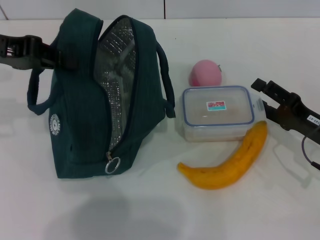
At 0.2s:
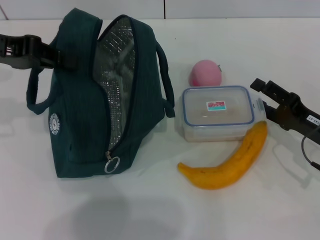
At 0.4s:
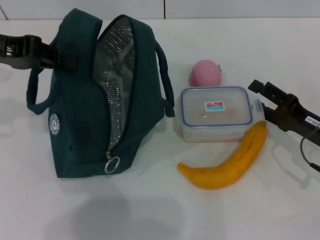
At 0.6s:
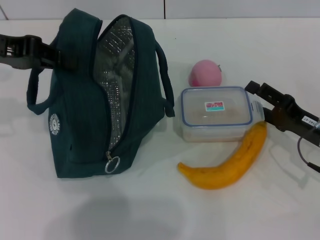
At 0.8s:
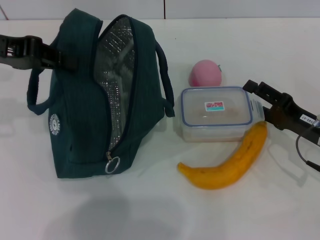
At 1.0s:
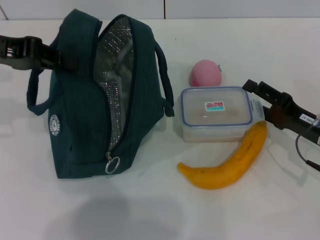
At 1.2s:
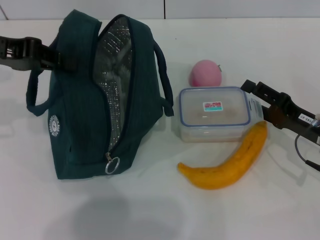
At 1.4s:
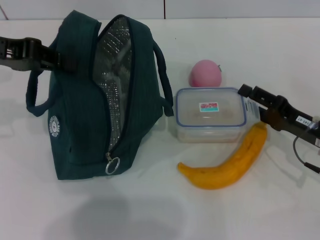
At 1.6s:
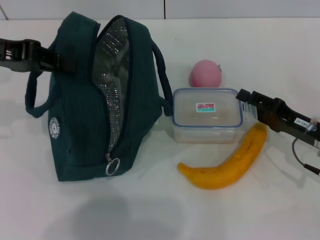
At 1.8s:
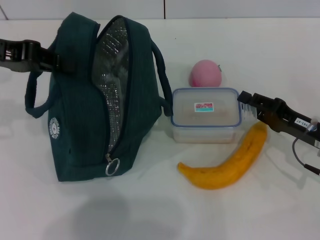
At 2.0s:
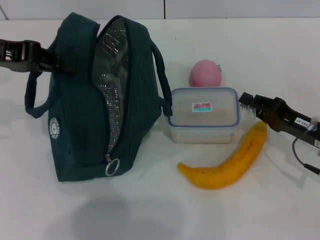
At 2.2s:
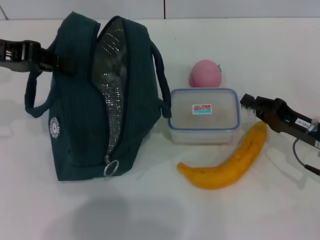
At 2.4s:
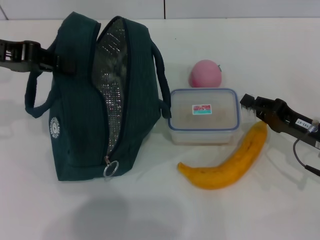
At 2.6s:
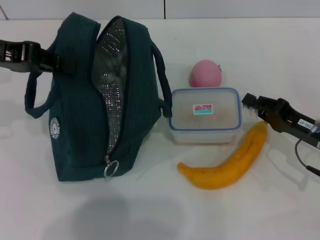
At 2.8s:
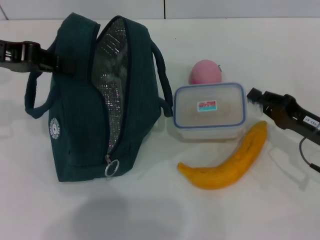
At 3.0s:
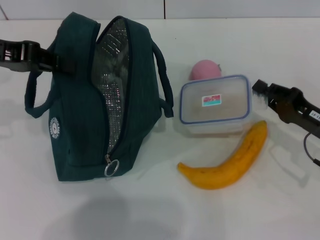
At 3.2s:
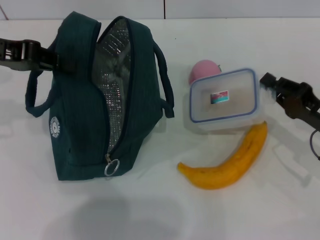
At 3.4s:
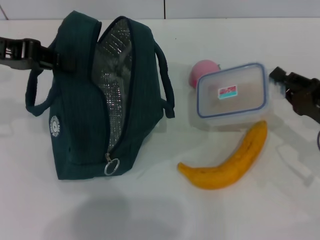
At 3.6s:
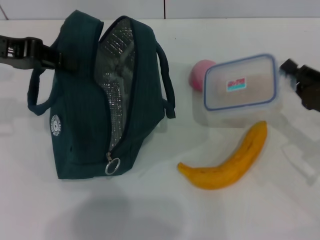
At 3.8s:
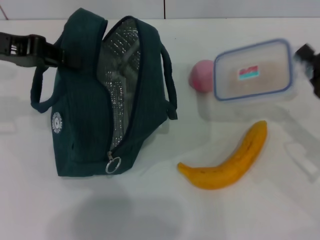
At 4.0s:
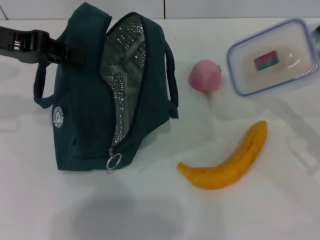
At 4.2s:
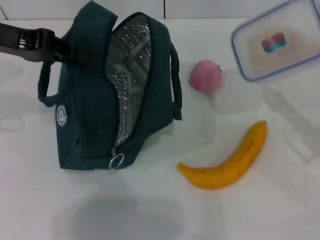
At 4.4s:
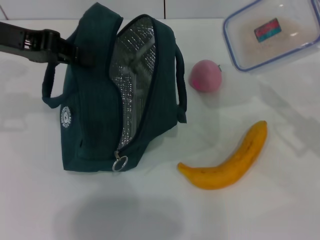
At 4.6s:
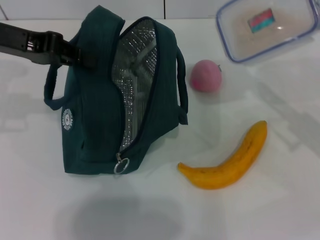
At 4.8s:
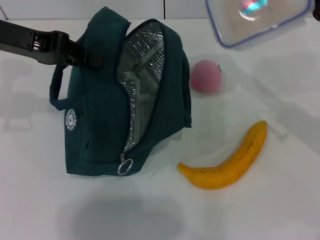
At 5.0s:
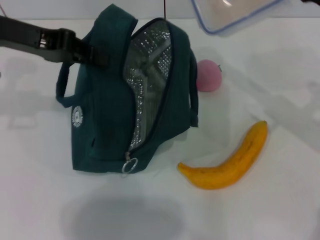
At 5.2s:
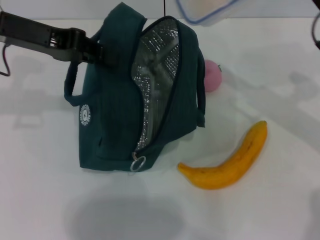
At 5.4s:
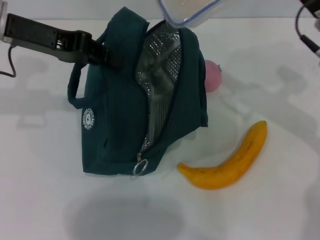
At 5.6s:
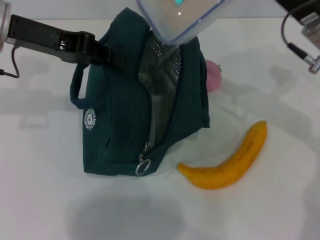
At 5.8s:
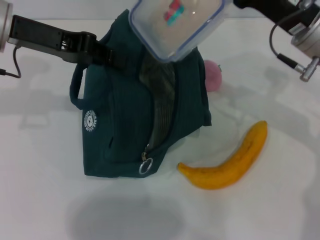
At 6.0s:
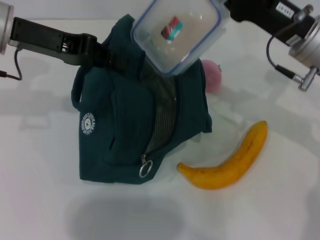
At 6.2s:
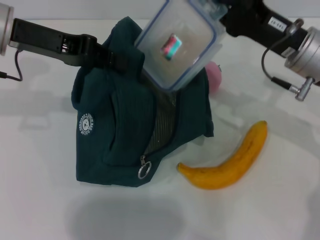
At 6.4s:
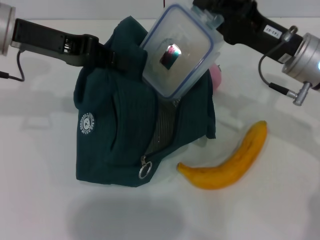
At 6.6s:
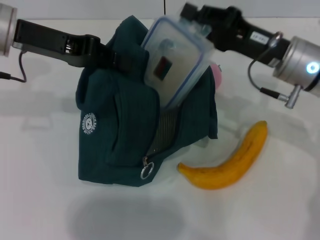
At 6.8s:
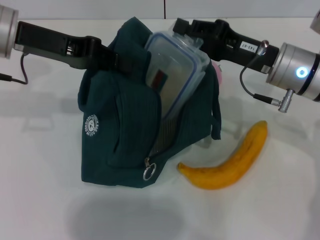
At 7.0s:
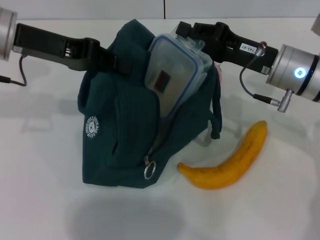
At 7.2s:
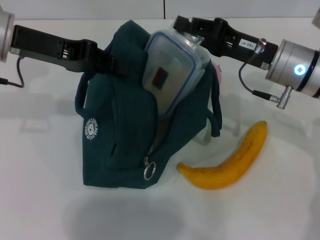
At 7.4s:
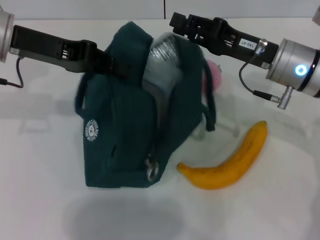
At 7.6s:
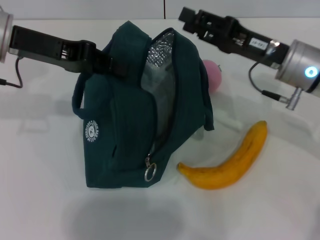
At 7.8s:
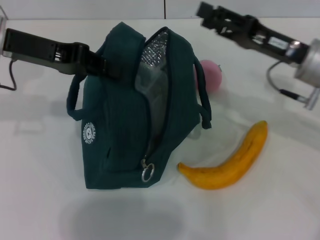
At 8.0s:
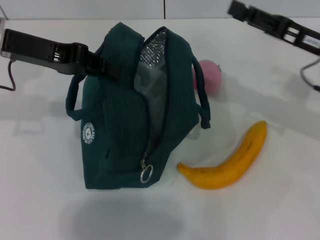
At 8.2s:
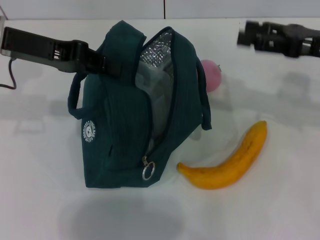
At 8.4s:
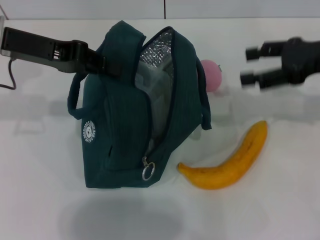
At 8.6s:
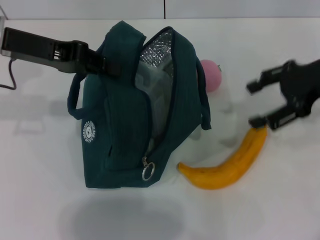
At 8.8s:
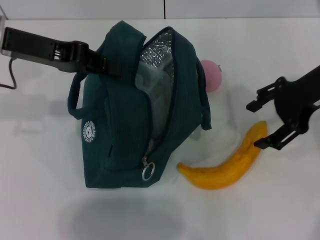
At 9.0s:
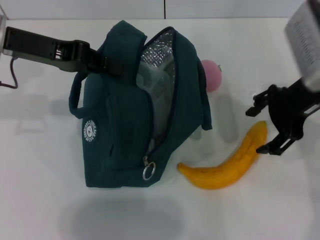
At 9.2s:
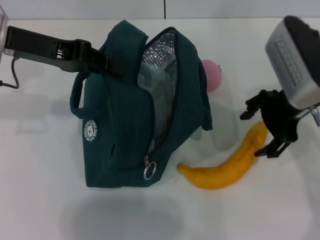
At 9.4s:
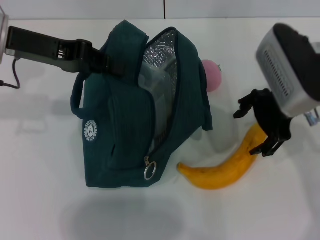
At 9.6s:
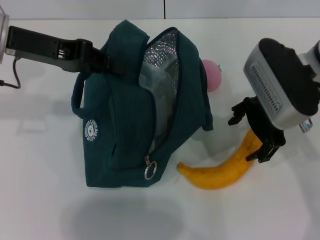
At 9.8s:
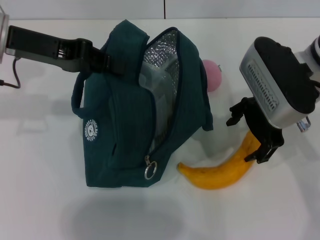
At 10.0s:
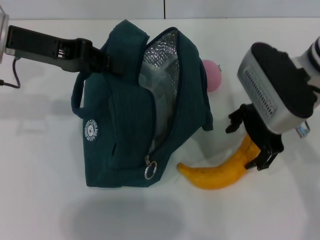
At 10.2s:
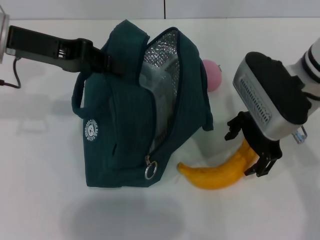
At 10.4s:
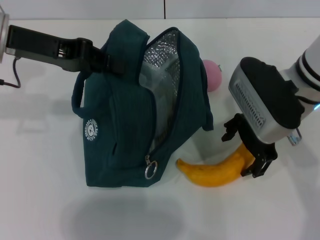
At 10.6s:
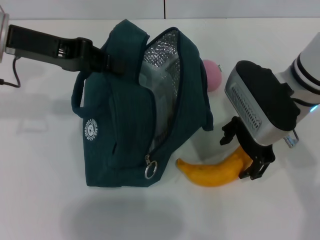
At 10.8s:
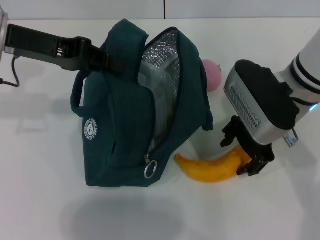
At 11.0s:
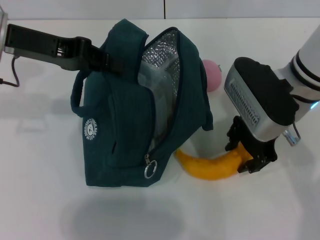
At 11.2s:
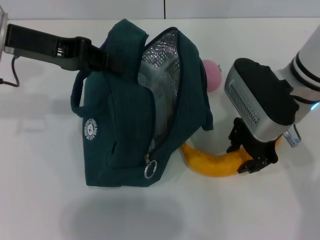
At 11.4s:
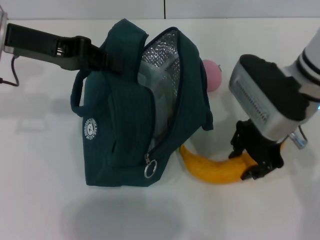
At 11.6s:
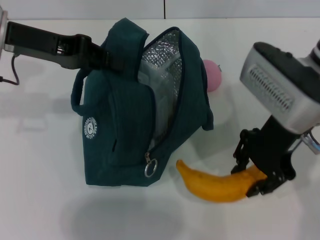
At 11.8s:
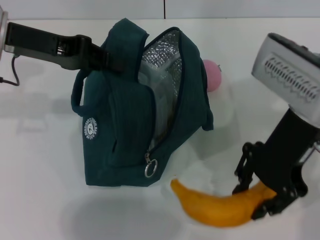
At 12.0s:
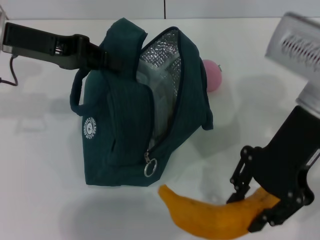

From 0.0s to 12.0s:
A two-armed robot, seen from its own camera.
Step, from 0.0s to 2.4s: Pick up the lunch box with your right hand.
Step, from 2.6s to 7.2s: Place the lunch box into the lunch bag with your right hand.
Step, from 7.6s to 11.2s: Take the banana with your right hand.
From 0.0s to 1.6s: The grippers stay close to where they were, moving slightly.
From 1.6s to 3.0s: The right gripper closes up.
From 3.0s to 4.4s: The right gripper moves upward, some 5 cm.
From 4.4s to 6.0s: The right gripper heads to the left and forward, covering some 10 cm.
From 7.6s to 9.0s: The right gripper is displaced upward by roughly 5 cm, goes to the right and returns, approximately 10 cm each way, and opens up.
From 9.0s to 10.4s: The right gripper moves to the left, roughly 5 cm.
From 10.4s to 12.0s: The right gripper shifts approximately 5 cm upward, and closes.

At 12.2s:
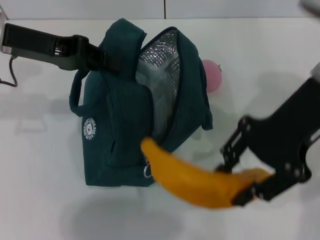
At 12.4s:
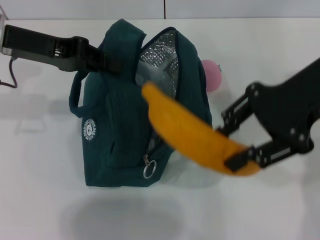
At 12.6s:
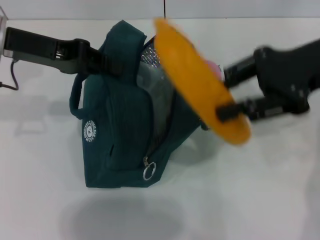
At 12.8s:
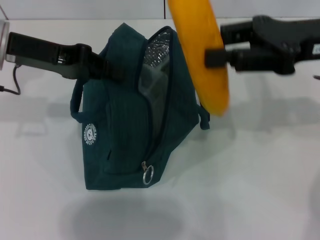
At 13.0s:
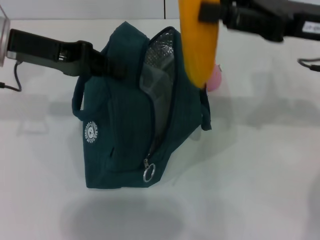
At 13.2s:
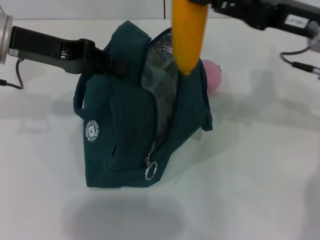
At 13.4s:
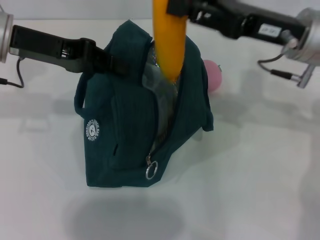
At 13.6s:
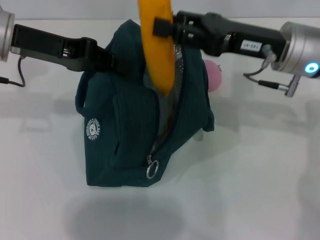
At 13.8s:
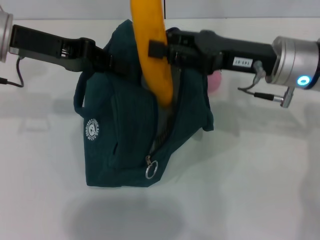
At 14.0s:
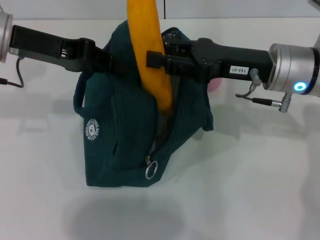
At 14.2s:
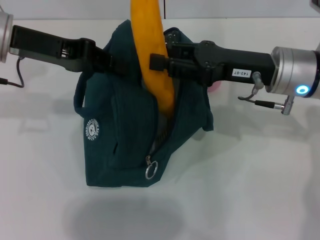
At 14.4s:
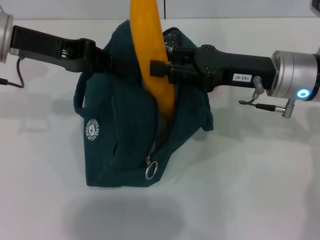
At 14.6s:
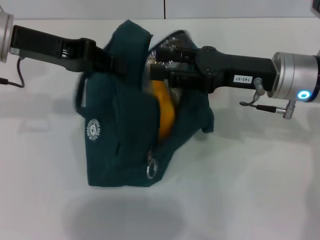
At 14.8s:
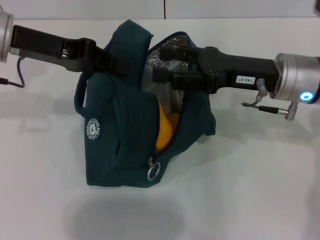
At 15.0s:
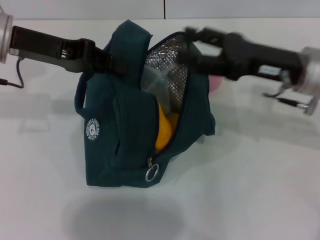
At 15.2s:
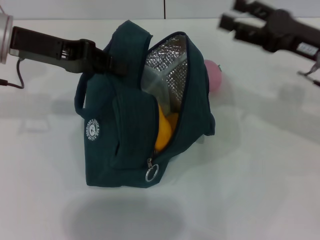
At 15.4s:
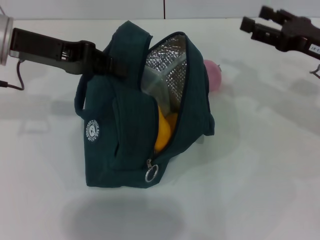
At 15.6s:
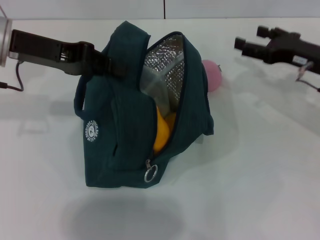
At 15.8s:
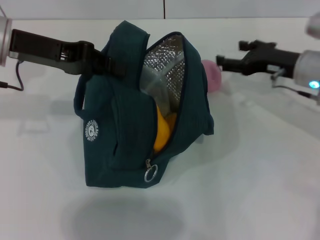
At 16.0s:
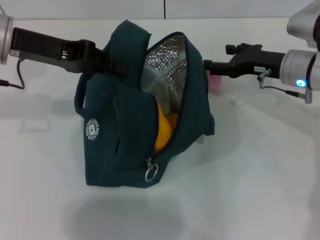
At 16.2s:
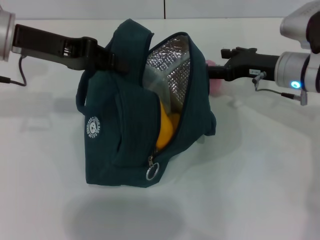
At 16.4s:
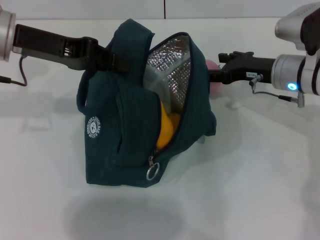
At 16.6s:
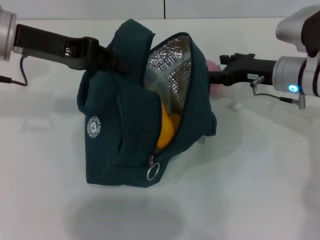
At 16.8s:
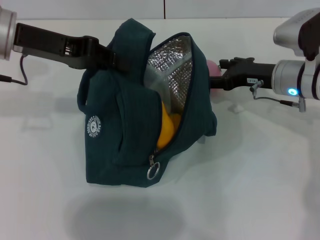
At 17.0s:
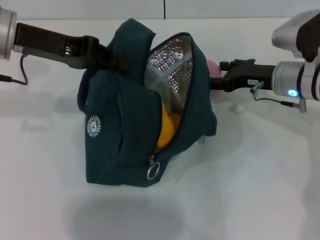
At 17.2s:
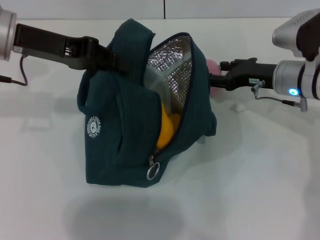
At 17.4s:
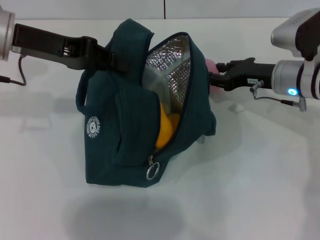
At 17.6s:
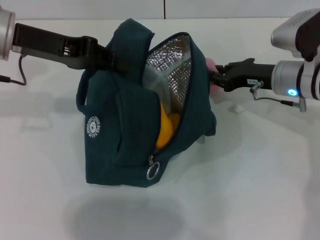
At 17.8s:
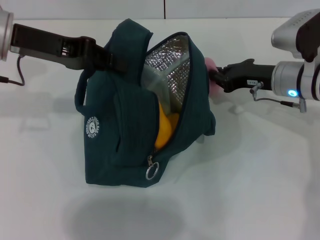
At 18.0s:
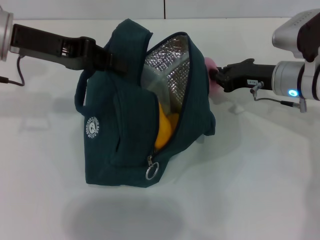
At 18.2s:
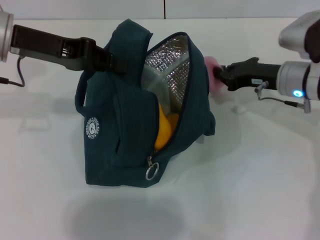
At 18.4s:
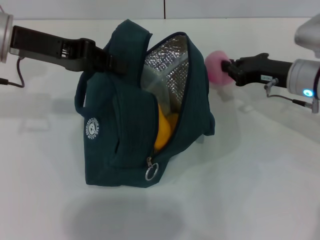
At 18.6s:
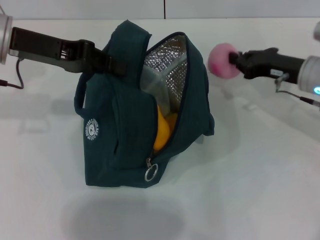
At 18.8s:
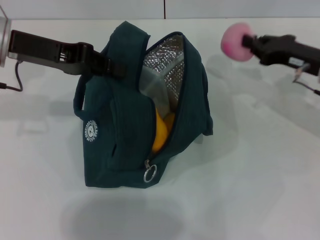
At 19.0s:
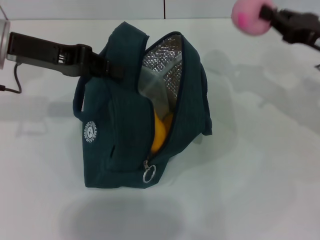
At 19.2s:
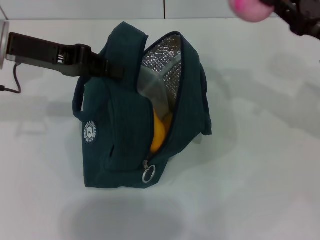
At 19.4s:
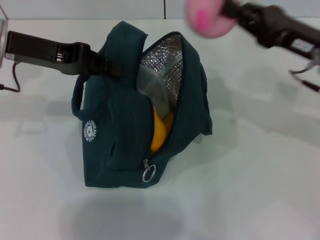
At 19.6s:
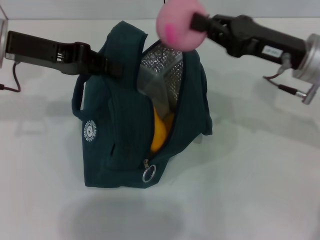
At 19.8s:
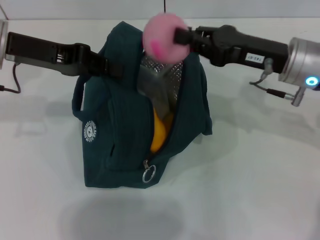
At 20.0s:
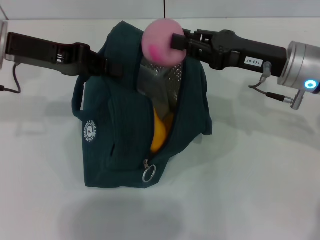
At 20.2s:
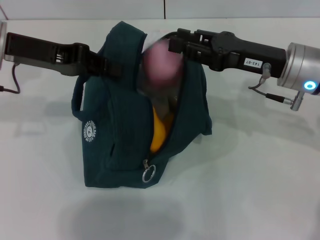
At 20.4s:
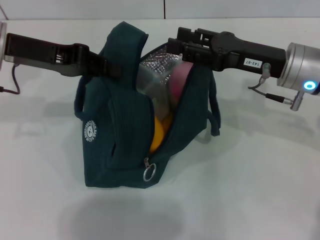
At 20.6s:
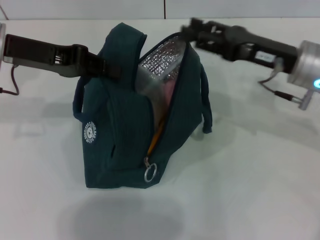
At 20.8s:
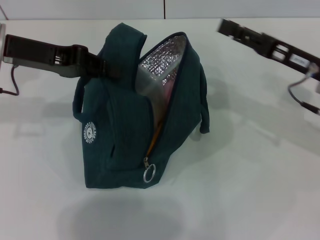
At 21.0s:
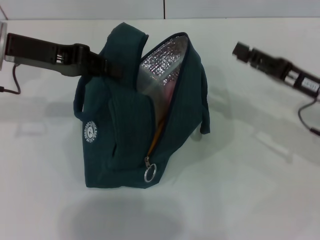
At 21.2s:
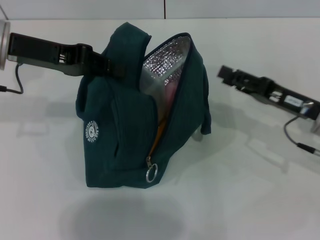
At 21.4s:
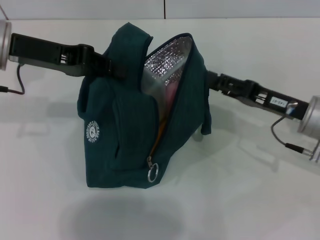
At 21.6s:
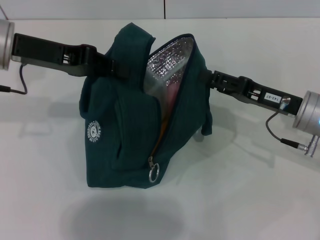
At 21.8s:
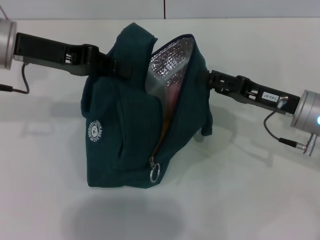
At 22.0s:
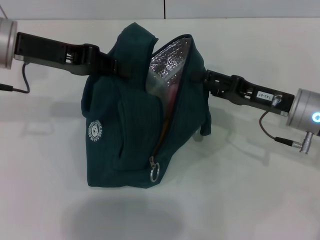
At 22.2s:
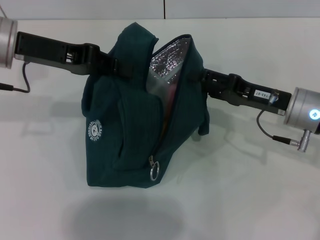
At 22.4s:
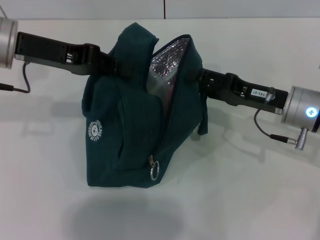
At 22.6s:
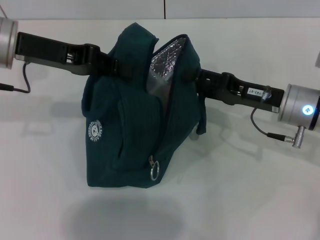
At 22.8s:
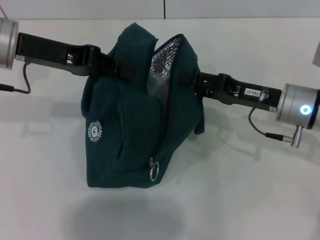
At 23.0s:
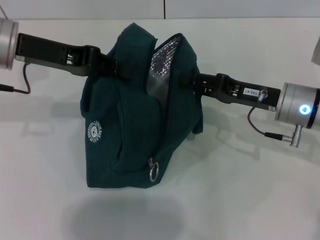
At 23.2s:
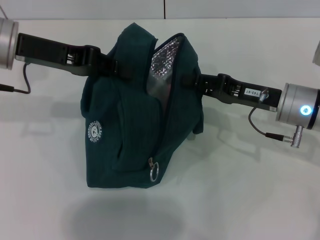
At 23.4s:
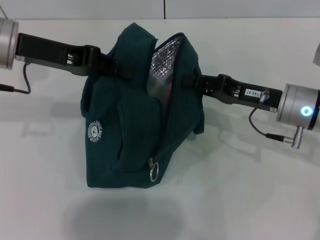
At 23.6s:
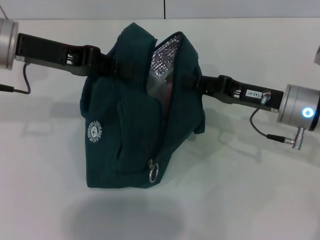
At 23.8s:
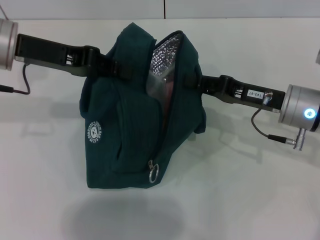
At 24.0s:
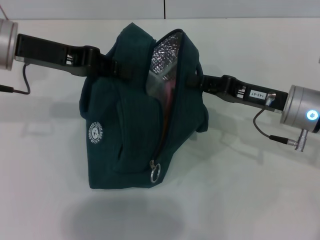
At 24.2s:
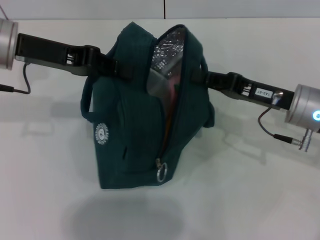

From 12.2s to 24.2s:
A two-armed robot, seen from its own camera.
Step, from 12.2s to 14.6s: Put the banana into the lunch bag with your right hand.
Step, from 15.0s to 17.8s: Grab the peach with your right hand.
From 12.2s to 13.8s: The right gripper goes about 10 cm downward.
From 13.8s to 15.2s: The right gripper shifts roughly 10 cm to the right, and opens up.
From 15.2s to 16.6s: The right gripper is displaced downward and forward by approximately 10 cm.
From 16.6s to 18.2s: The right gripper closes its fingers.
From 18.2s to 19.8s: The right gripper heads upward, covering roughly 5 cm, and moves about 5 cm to the right and comes back.
From 19.8s to 21.2s: The right gripper heads downward and to the right, covering roughly 10 cm, and opens.
From 21.2s to 22.6s: The right gripper changes place by some 5 cm.
From 22.6s to 24.2s: The right gripper closes its fingers.
